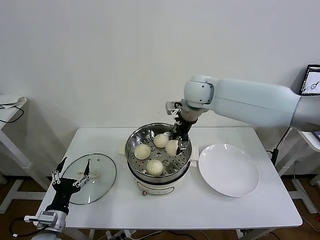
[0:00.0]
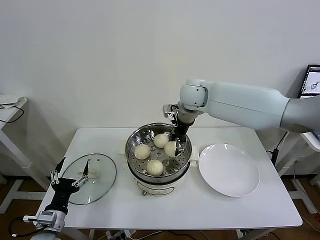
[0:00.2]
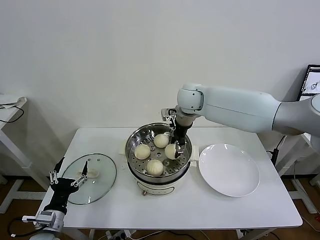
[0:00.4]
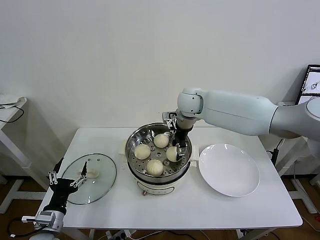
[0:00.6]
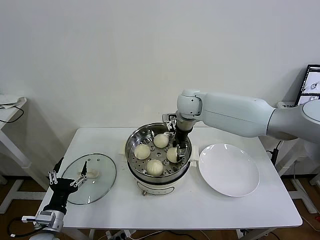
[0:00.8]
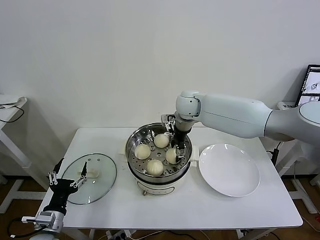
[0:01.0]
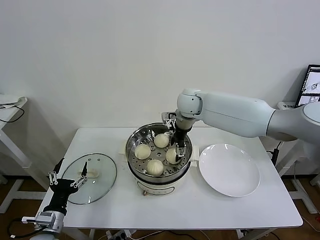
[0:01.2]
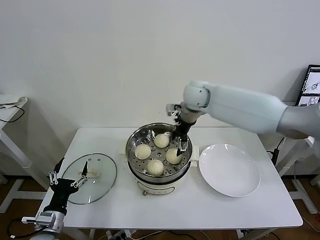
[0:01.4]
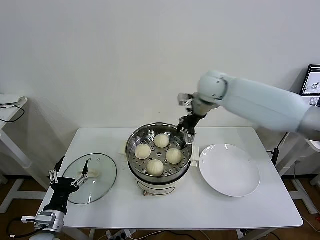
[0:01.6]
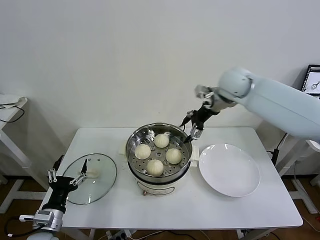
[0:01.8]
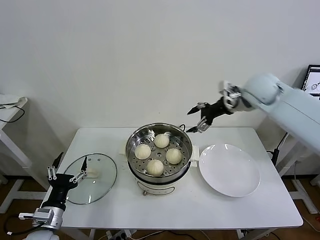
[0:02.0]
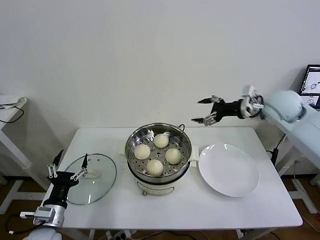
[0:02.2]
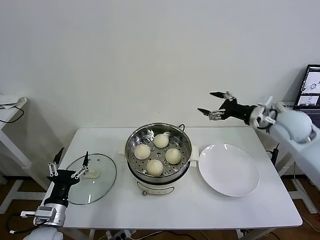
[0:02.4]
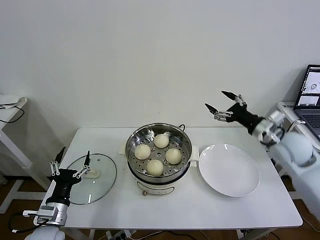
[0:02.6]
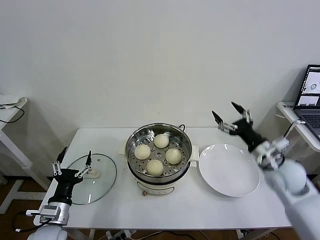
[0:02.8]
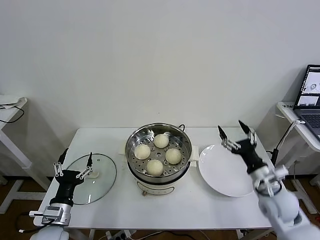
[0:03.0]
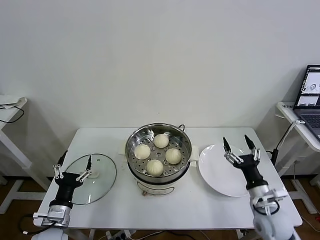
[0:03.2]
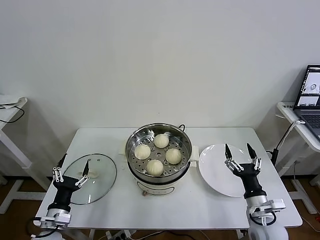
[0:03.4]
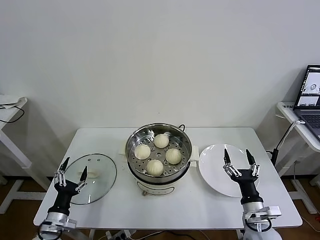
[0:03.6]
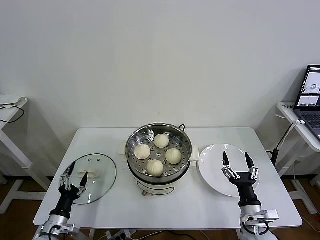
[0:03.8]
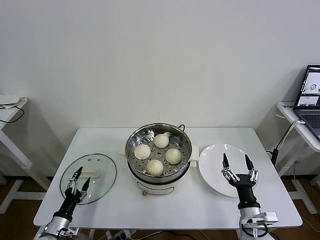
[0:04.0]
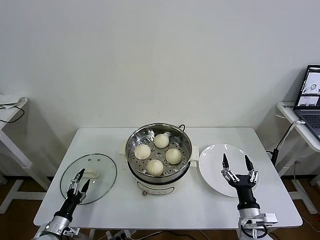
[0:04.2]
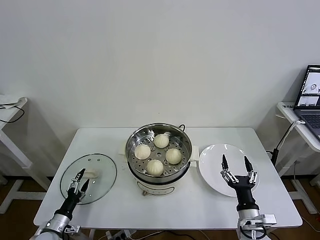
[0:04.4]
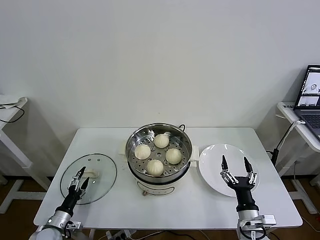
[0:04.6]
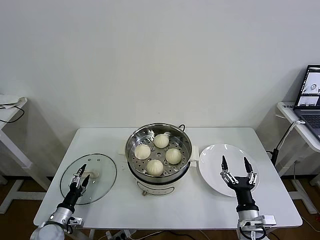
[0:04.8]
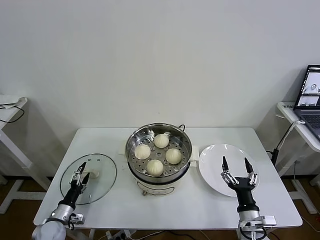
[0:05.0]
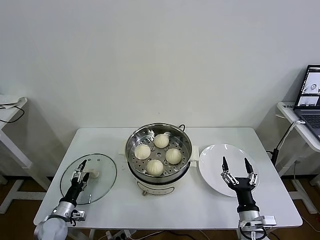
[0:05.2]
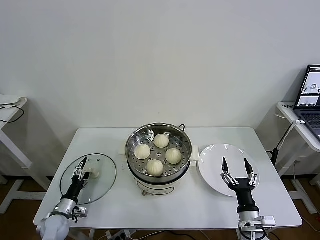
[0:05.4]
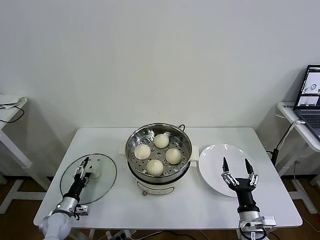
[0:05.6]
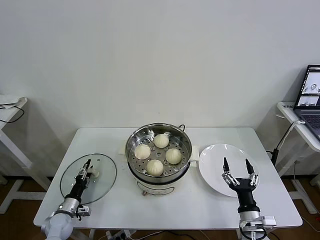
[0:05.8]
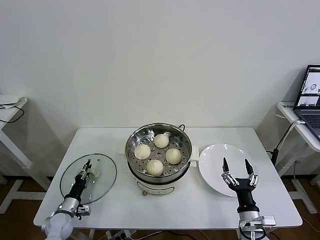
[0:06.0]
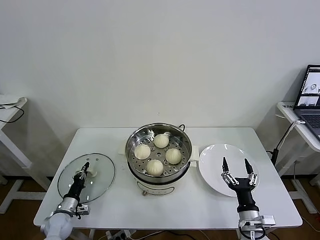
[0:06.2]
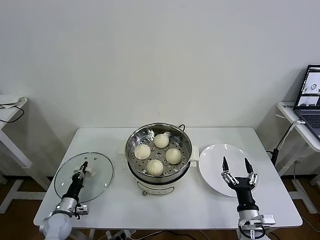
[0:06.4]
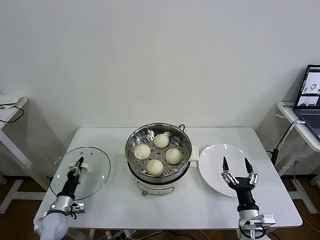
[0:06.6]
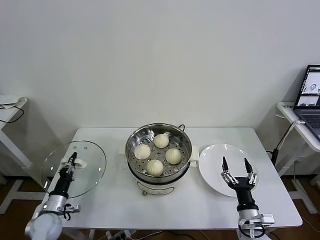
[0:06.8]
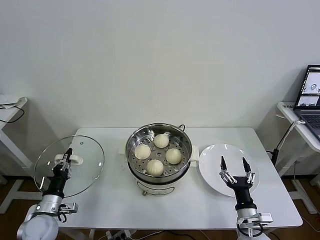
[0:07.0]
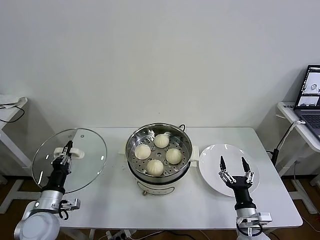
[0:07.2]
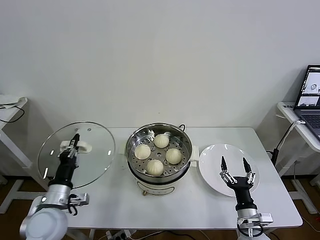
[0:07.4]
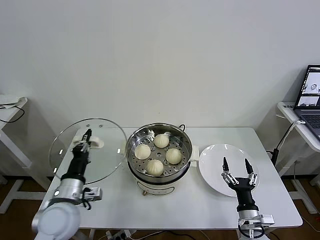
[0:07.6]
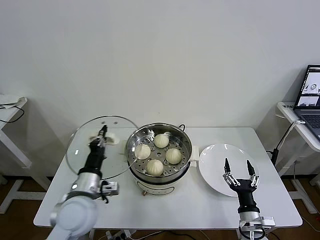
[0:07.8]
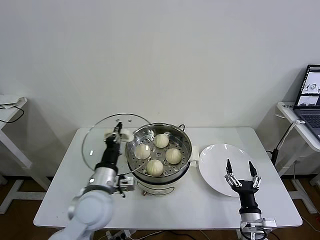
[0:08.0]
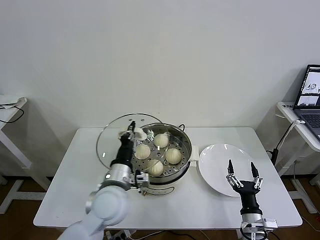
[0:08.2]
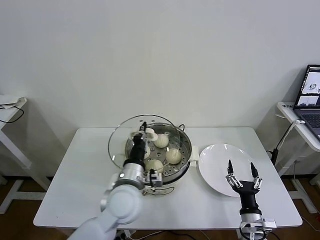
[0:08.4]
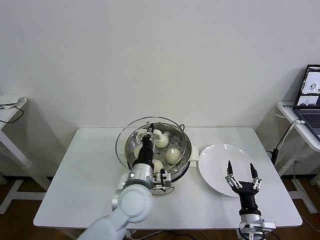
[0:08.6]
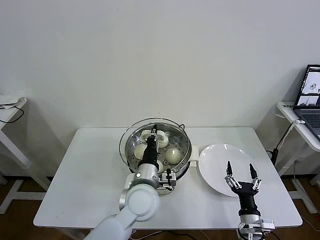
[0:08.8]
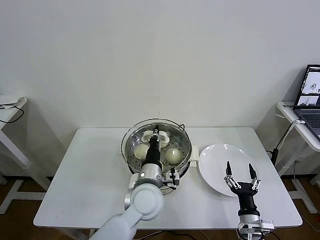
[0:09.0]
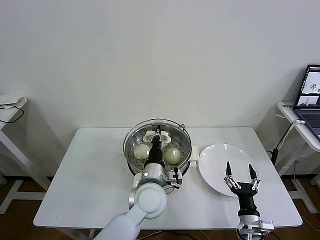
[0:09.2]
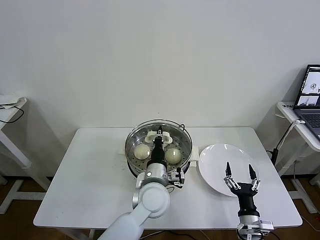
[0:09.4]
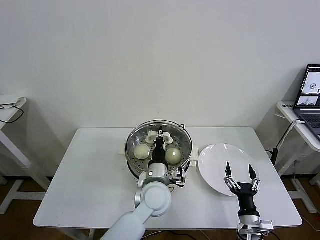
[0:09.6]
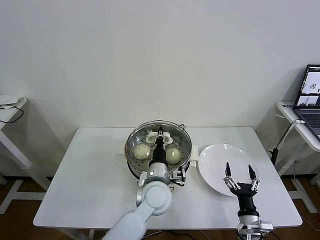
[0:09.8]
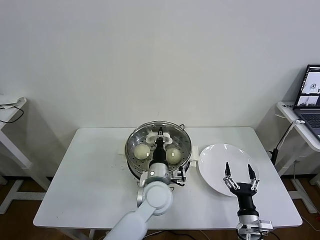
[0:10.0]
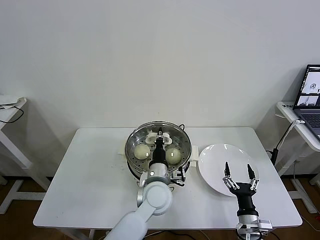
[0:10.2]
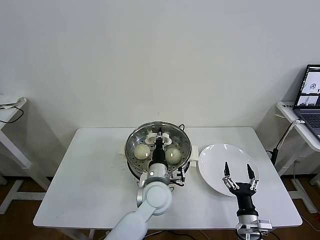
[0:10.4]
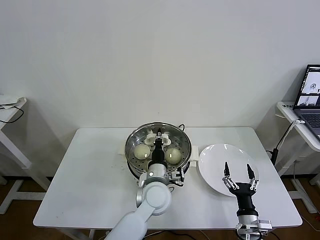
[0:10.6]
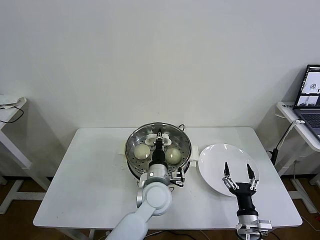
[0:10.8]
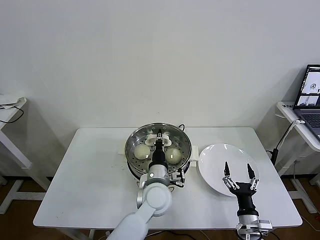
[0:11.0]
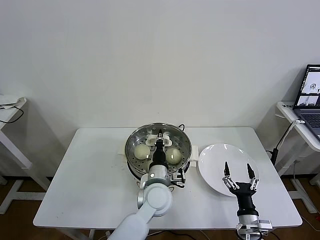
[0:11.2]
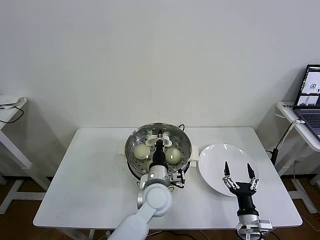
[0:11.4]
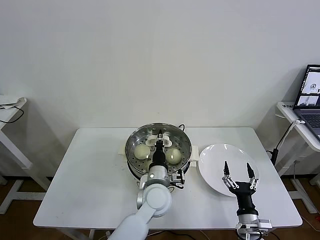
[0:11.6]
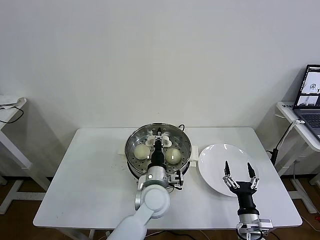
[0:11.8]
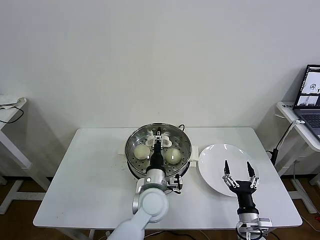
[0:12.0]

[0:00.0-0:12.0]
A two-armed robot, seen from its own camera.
Task of the whole recording: take steamed baozi put them in steamer then cover it.
Step, 0:01.6 to 0:06.4: Grasp the pot lid with left gripper.
0:00.0 to 0:01.6: The right gripper heads to the right, covering about 5 cm, and opens up.
0:01.6 to 0:03.0: The right gripper travels backward, downward and to the right by roughly 40 cm.
0:03.0 to 0:04.4: The right gripper travels backward, downward and to the left by approximately 15 cm; the left gripper travels downward and to the left by roughly 15 cm.
0:04.4 to 0:06.0: The left gripper is displaced forward by approximately 5 cm, and closes its fingers.
0:06.0 to 0:07.6: The left gripper shifts approximately 25 cm upward and to the right, and closes its fingers.
0:07.6 to 0:09.0: The left gripper moves to the right, about 25 cm.
0:09.0 to 0:10.4: The left gripper ends up about 5 cm from where it was.
0:10.4 to 0:12.0: The left gripper opens its fingers.

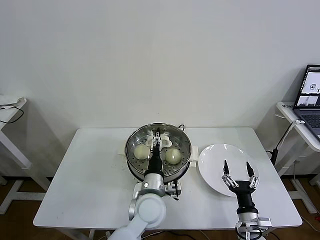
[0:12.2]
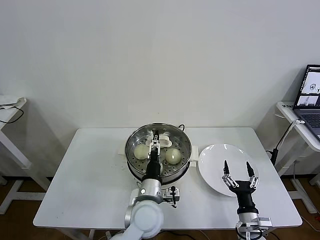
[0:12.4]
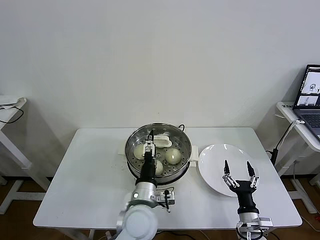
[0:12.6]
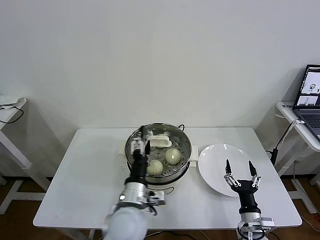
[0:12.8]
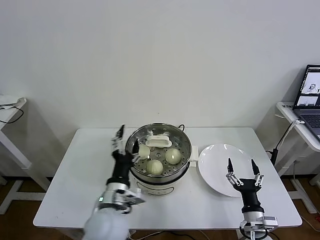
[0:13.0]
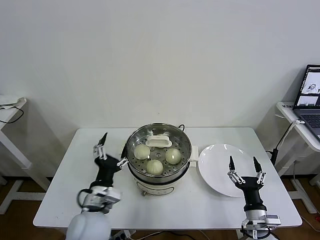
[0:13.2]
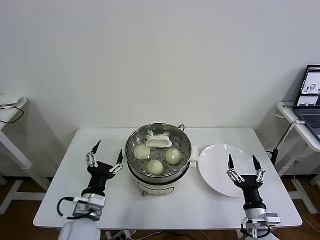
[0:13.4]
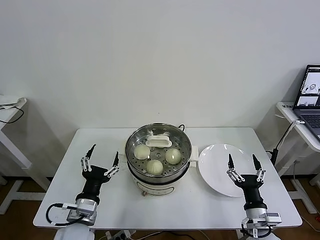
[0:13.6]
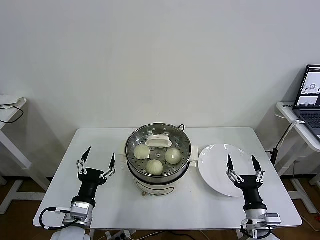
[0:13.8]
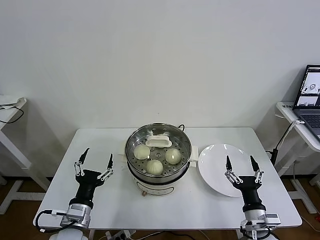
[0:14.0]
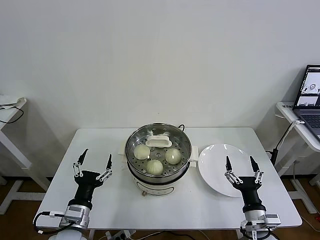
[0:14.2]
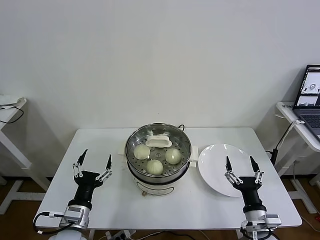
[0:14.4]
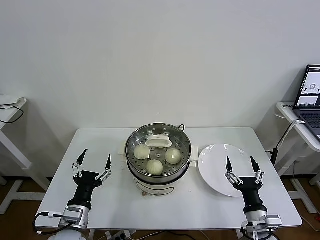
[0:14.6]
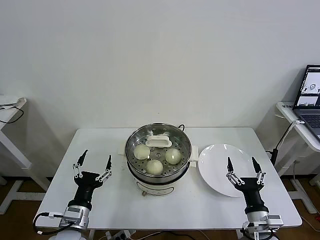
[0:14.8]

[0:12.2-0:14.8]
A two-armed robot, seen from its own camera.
Task of the whole recording: take steamed baozi put them in steamer then cover it.
0:12.2 to 0:13.4: The left gripper goes approximately 20 cm to the left and backward.
0:13.4 to 0:14.8: The left gripper shifts by about 5 cm.

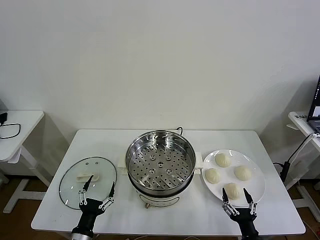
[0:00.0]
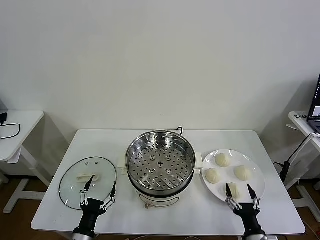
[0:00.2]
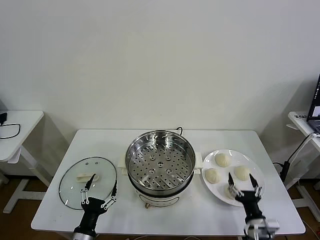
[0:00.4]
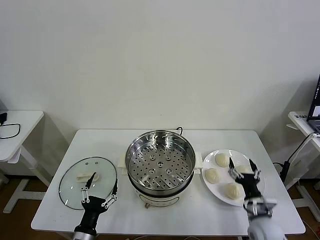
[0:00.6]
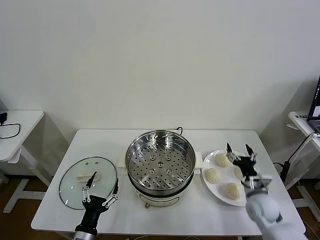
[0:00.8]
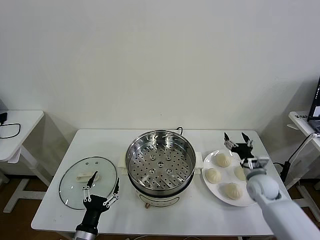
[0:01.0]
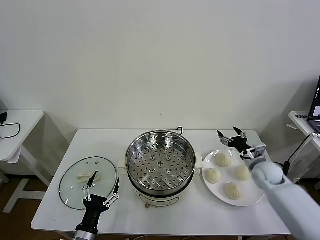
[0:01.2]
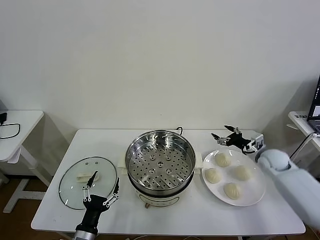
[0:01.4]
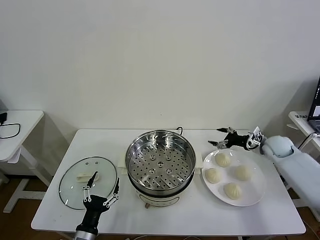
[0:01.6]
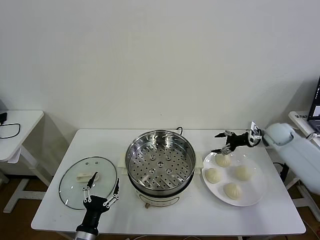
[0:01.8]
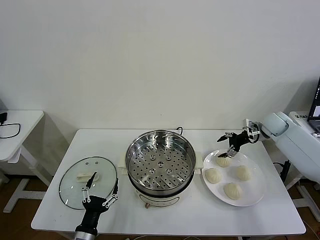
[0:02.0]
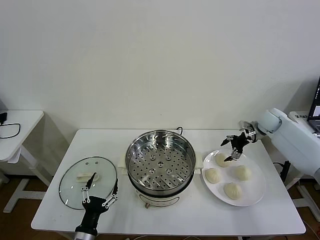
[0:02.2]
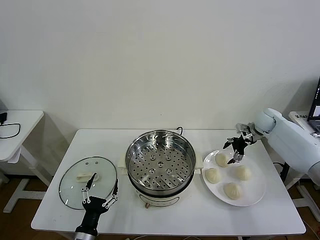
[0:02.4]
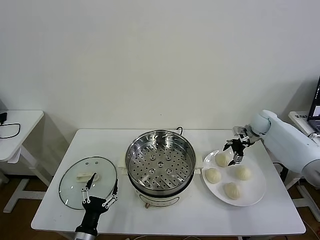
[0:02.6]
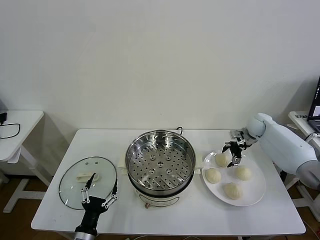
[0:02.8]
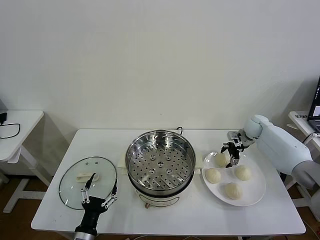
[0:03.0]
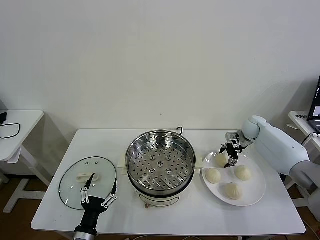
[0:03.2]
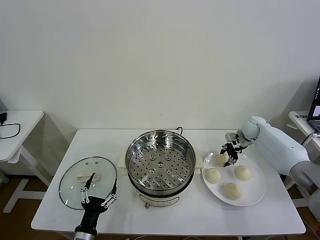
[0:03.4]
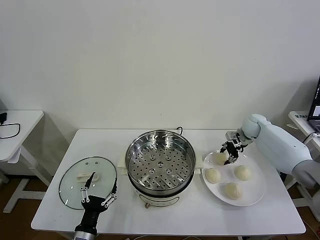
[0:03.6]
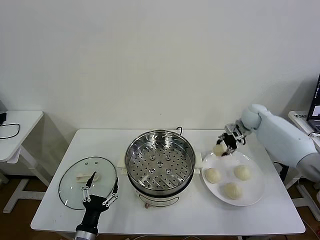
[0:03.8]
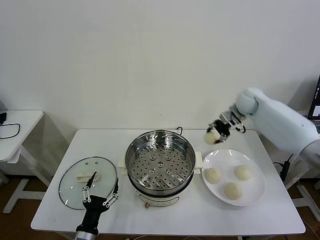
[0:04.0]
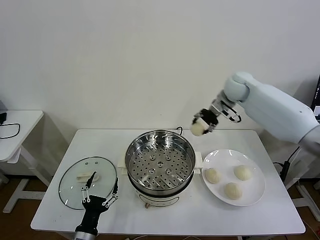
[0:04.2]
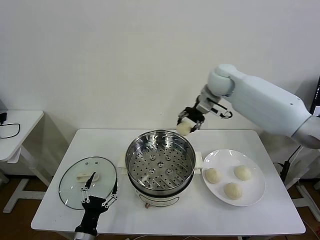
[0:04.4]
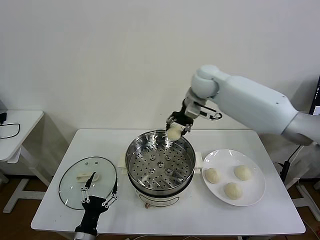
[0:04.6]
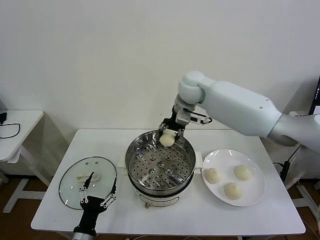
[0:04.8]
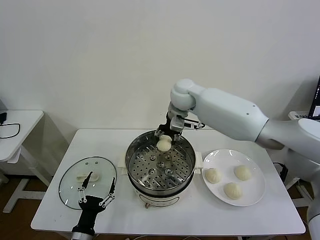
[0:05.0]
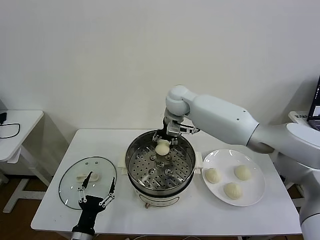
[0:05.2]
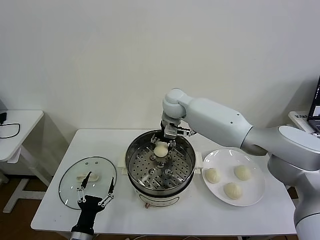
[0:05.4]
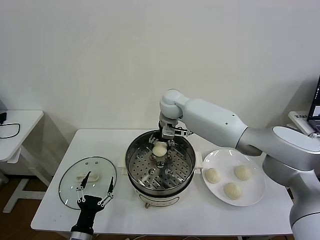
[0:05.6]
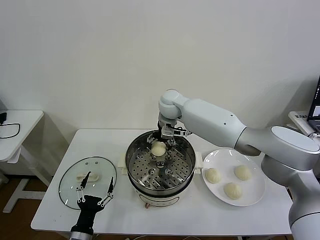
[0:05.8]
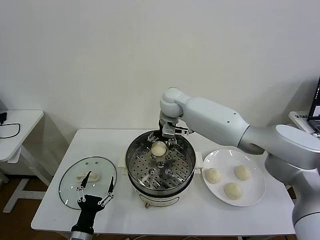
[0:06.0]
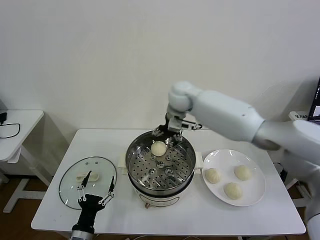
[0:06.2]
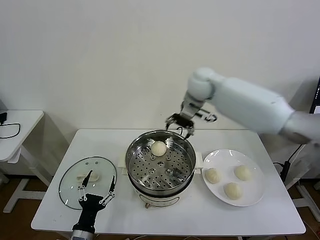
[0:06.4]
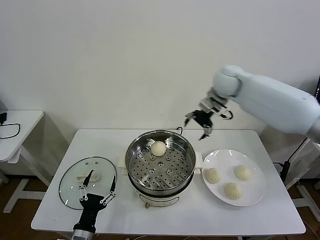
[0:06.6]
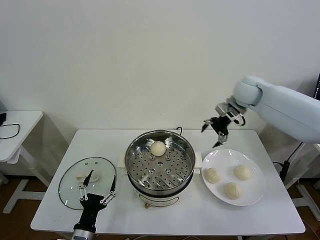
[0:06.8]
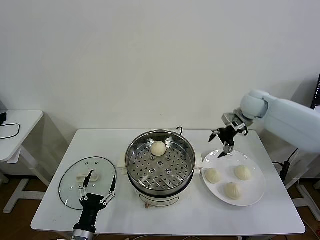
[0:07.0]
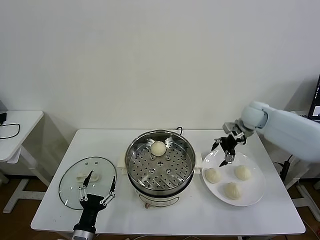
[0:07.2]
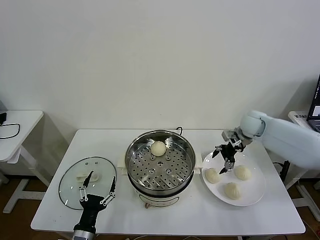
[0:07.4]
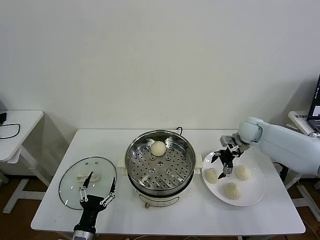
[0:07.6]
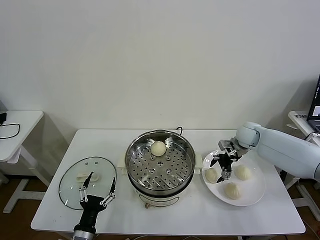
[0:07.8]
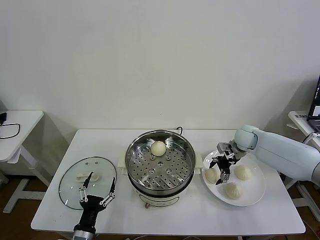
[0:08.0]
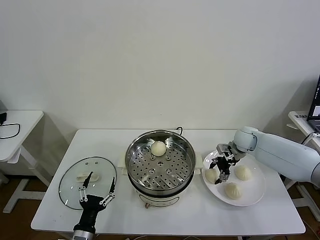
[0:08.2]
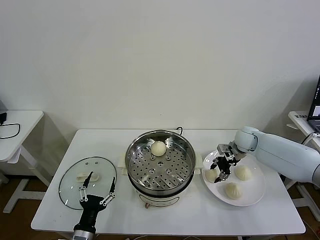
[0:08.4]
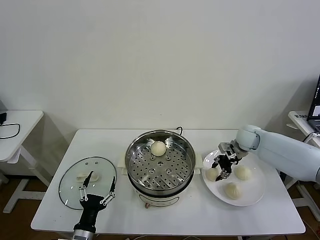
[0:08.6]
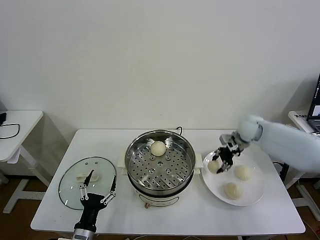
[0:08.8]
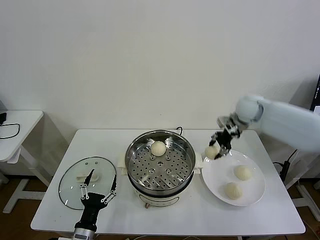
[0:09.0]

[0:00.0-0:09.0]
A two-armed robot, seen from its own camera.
Task of the whole recording: take steamed baozi put them in steamer then cover it.
Step, 0:00.0 to 0:03.6: Grasp the baozi in the plate with right gripper.
Step, 0:03.8 to 0:06.2: Place the baozi on the steamer with right gripper.
Step, 0:06.4 to 0:08.6: Grasp the baozi in the plate with right gripper.
0:01.6 to 0:03.0: The right gripper moves forward, some 10 cm.
0:03.0 to 0:04.4: The right gripper goes some 30 cm upward and to the left, and closes.
0:04.4 to 0:06.0: The right gripper travels to the left and downward by about 15 cm, and opens up.
0:06.0 to 0:07.6: The right gripper is displaced to the right by approximately 30 cm.
0:07.6 to 0:09.0: The right gripper is displaced upward by roughly 10 cm, and closes.
